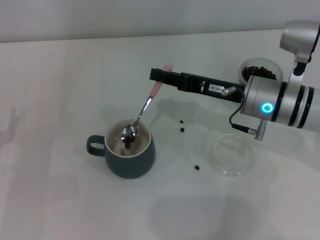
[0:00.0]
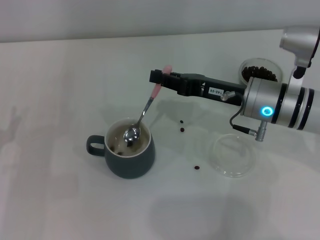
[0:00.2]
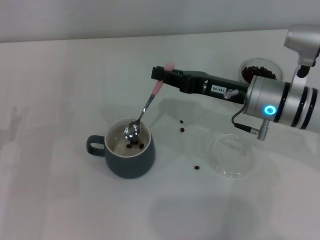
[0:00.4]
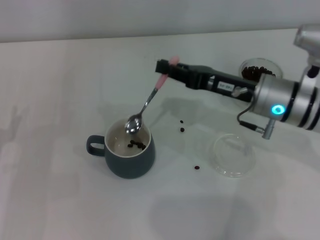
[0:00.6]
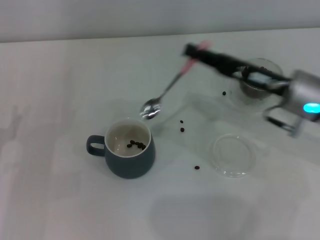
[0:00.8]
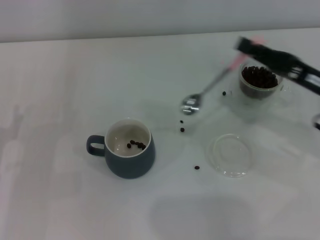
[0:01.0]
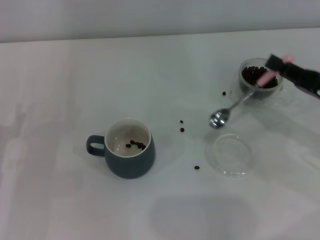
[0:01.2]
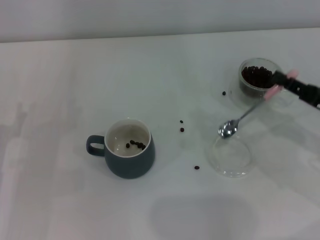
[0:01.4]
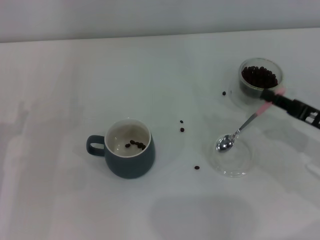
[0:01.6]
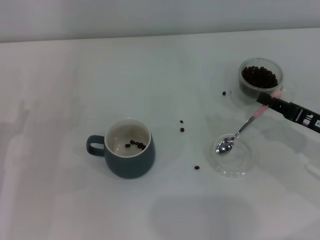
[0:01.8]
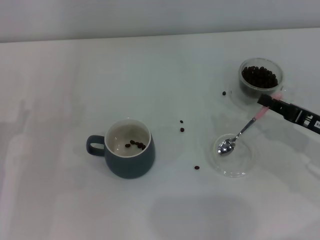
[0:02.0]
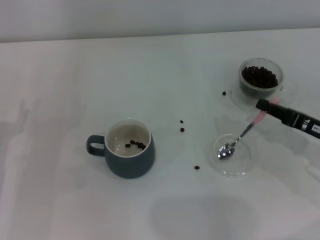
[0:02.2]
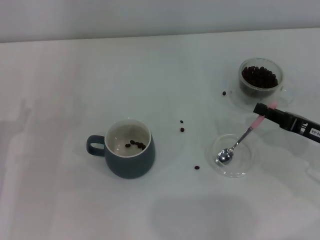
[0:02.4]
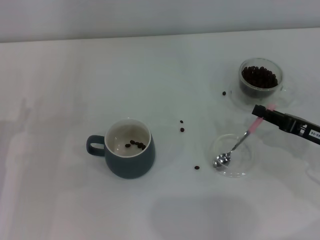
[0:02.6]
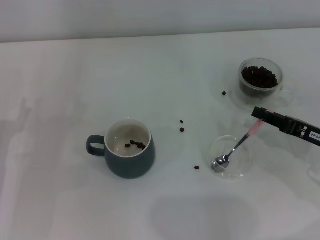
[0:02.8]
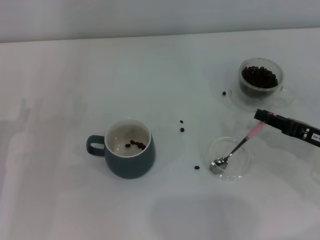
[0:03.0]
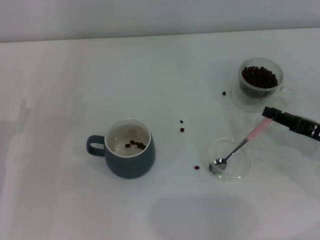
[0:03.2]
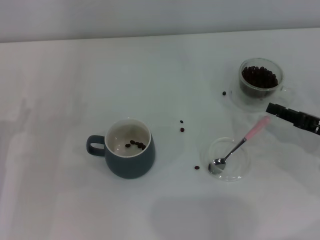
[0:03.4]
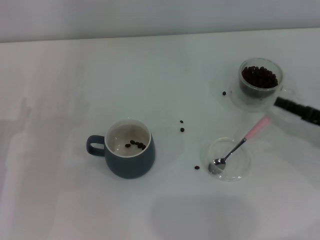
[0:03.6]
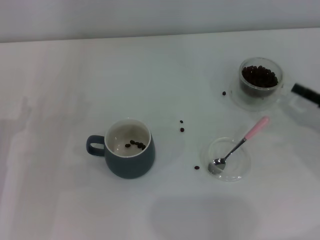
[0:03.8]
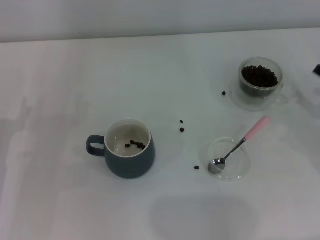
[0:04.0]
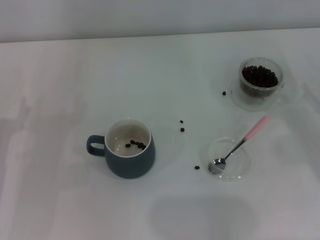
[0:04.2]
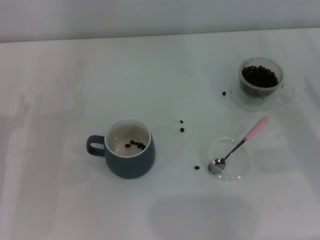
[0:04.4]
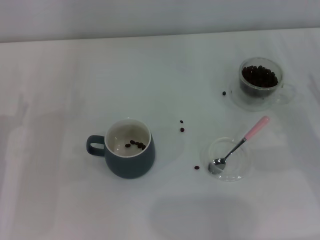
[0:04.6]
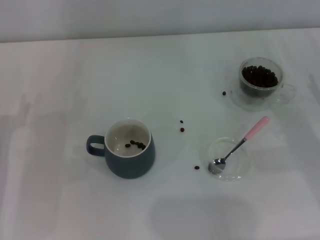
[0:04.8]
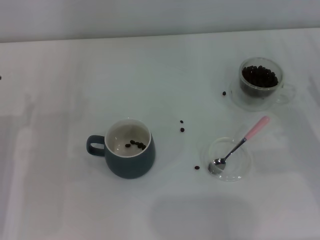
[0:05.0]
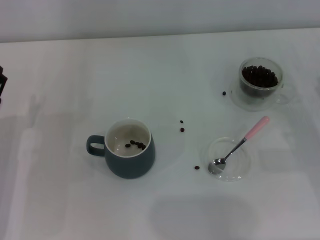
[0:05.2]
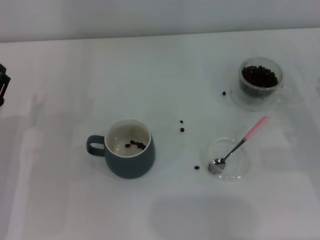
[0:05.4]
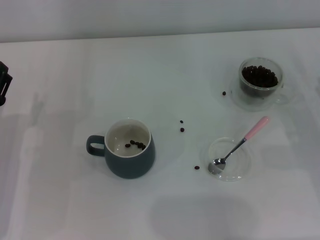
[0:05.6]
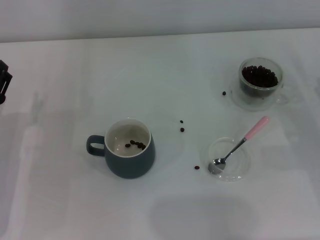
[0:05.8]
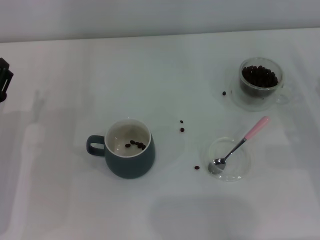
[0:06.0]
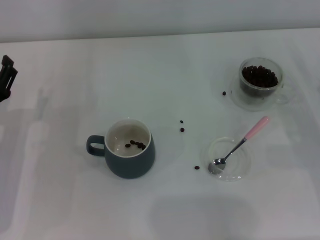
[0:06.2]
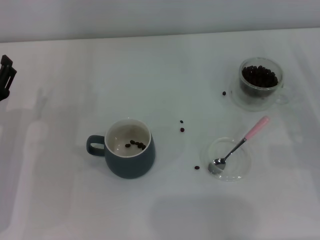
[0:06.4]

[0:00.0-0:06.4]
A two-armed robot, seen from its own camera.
Task of the whole recording: Use a pink spoon to take out the coffee beans from the glass and pour them into the gray cup.
Step, 0.6 to 3.4 s: Place the spoon back in its original place with the right gripper.
0.0 to 1.6 s: The right gripper moves to the right and backward, some 15 cm.
1.6 to 3.2 s: There are only small adjustments of the grippers.
3.2 to 4.8 s: The right gripper opens.

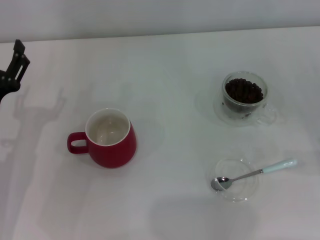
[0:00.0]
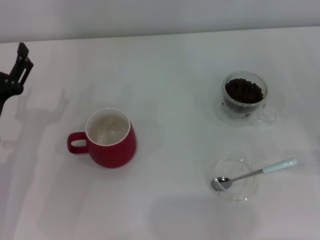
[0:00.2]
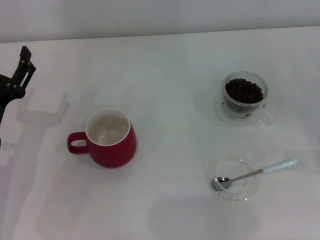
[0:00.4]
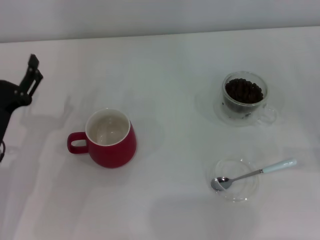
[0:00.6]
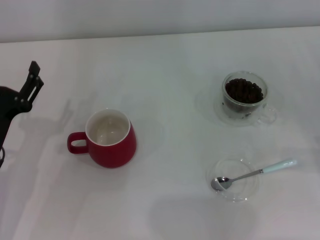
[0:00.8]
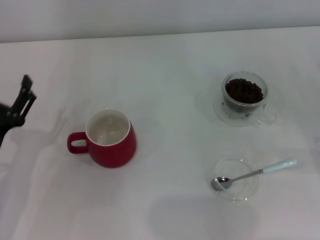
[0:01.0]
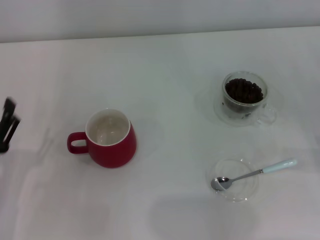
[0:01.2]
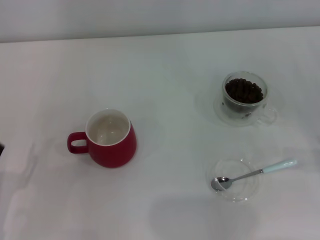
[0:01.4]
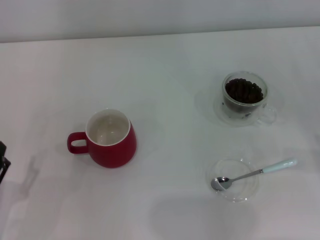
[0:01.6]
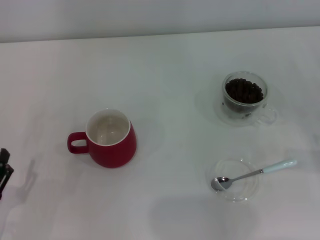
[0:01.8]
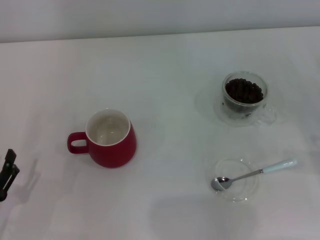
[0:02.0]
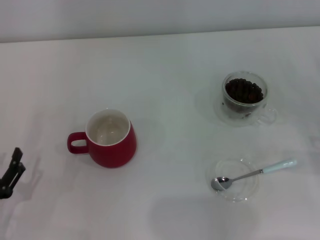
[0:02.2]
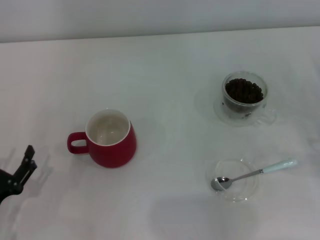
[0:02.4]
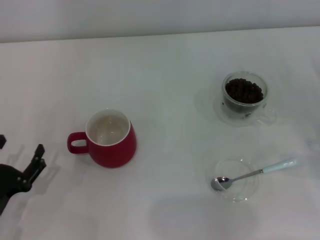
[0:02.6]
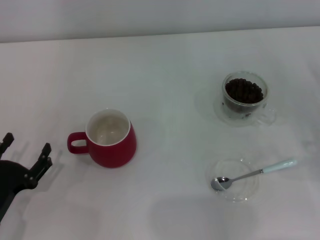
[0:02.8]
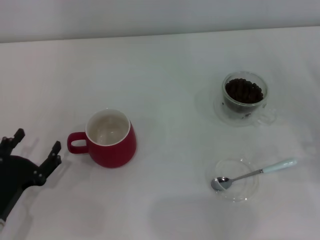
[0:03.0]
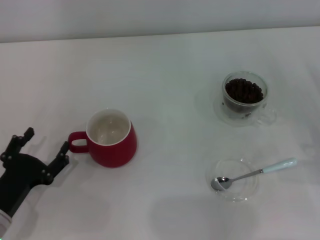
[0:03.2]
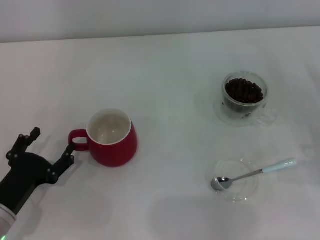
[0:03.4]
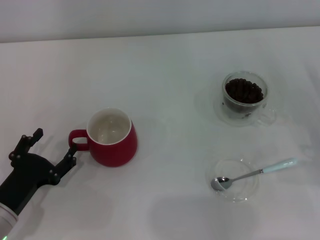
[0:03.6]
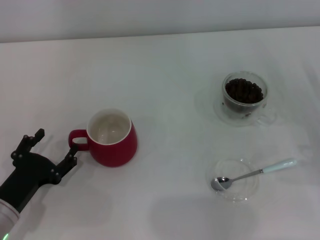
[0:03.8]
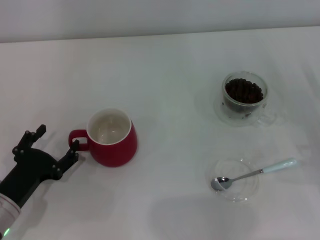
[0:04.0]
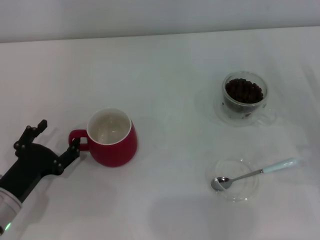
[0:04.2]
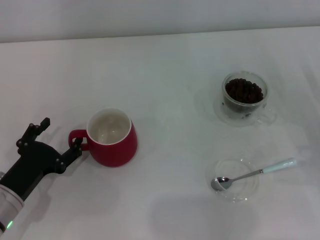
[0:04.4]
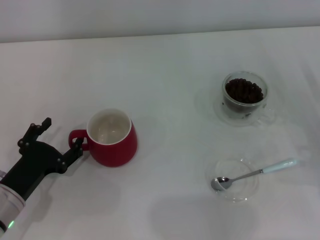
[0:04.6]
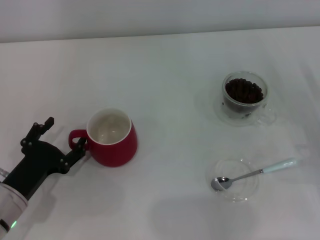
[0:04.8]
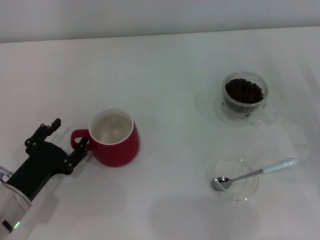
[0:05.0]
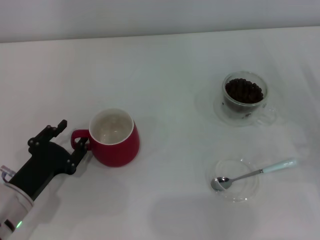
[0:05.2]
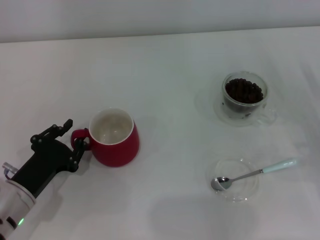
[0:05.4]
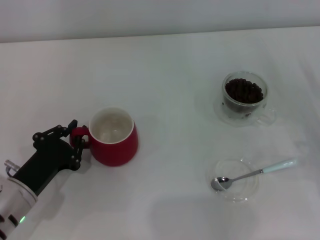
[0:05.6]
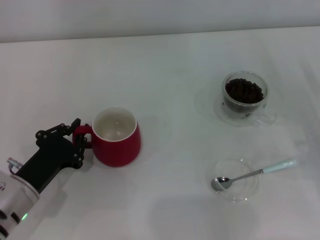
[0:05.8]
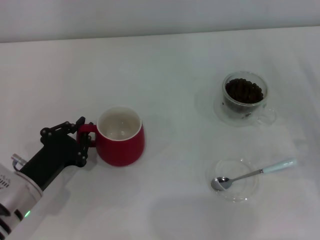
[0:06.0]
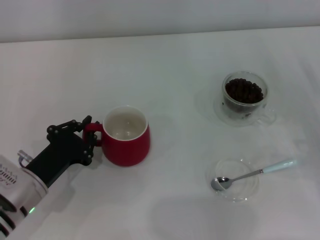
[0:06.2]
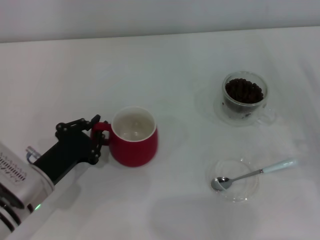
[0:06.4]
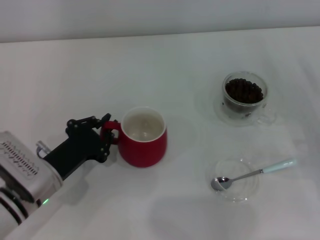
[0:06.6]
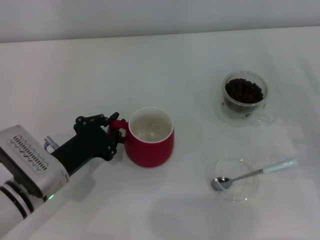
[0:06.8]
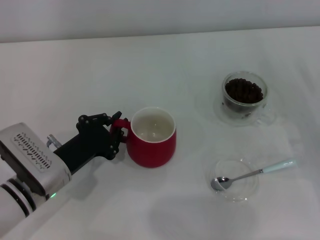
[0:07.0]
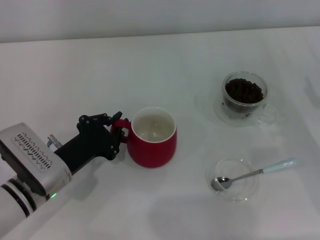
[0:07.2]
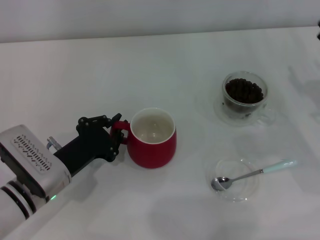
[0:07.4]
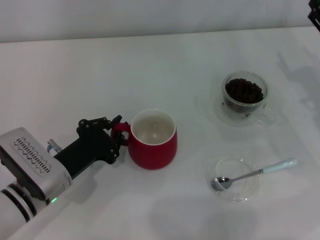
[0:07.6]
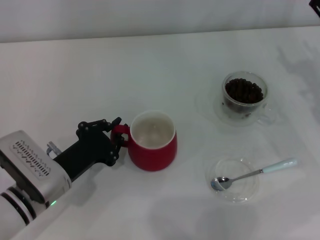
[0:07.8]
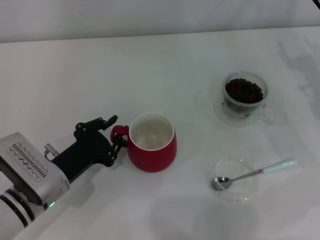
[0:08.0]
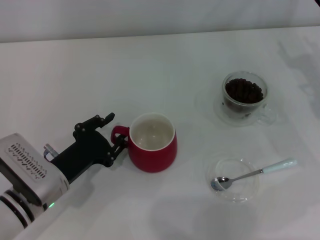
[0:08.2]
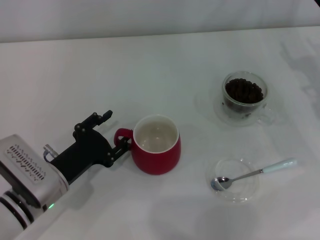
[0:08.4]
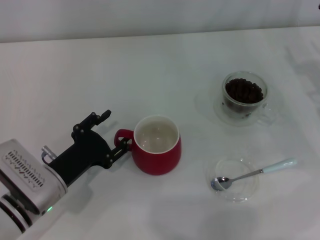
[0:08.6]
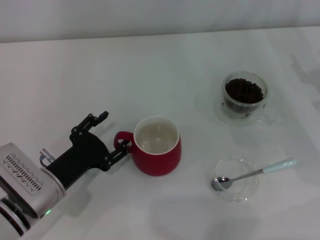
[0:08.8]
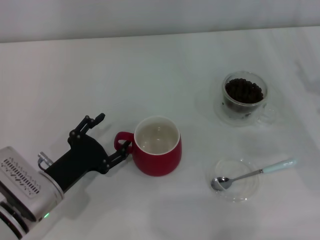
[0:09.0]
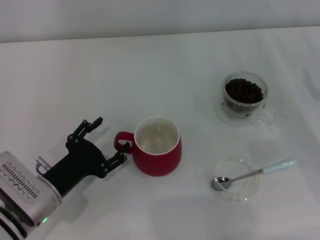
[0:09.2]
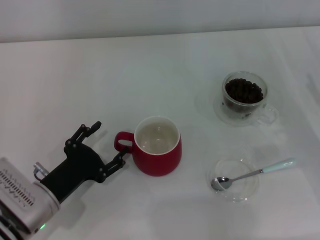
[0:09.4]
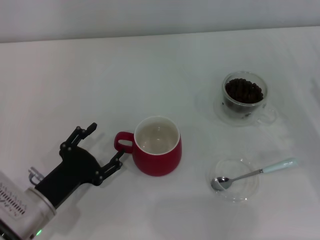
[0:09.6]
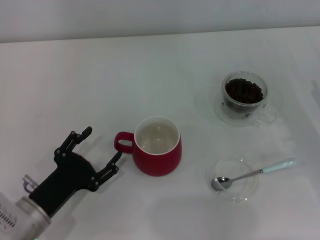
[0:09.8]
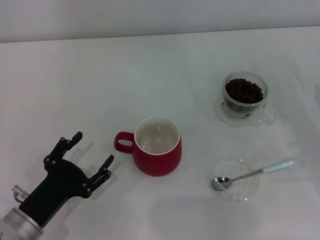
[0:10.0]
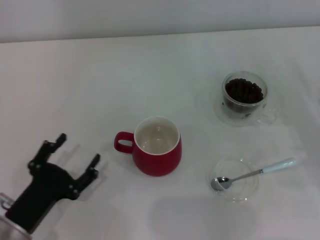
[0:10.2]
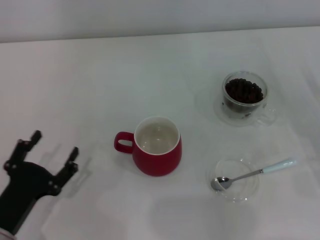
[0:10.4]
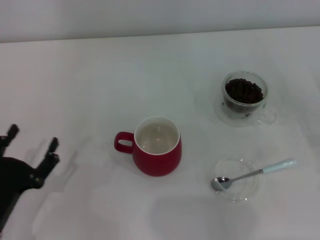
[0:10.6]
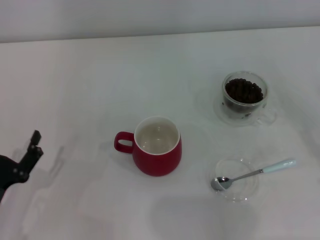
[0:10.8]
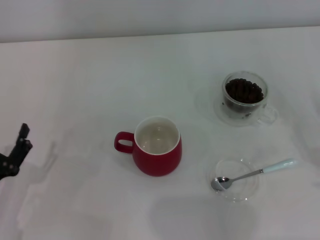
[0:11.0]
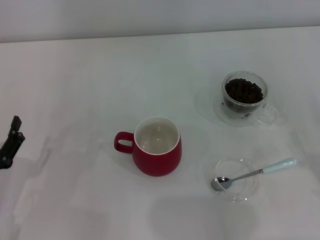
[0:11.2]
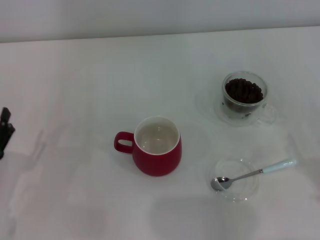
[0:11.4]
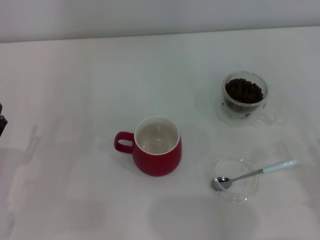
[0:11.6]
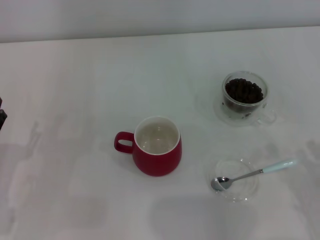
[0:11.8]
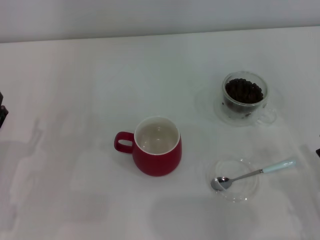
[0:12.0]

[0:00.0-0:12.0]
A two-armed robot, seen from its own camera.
Task of the whole recording: Use a blue spoon to take out the coffee beans from the glass and pour them into the red cup.
Step, 0.0 to 10.2 s: Move the cup to the center of view with the left gripper.
0.0 to 1.6 s: The left gripper goes approximately 15 cm backward.
1.6 to 3.0 s: The left gripper shifts approximately 5 cm forward.
3.0 to 4.4 s: The grippers move only a little.
4.4 to 6.0 s: The left gripper closes up.
6.0 to 7.6 s: The right gripper is displaced forward and upward by some 10 cm.
7.6 to 9.0 s: The left gripper opens up.
9.0 to 10.4 s: The left gripper travels backward by some 5 cm.
10.4 to 12.0 s: The left gripper ends up some 5 cm from where it was.

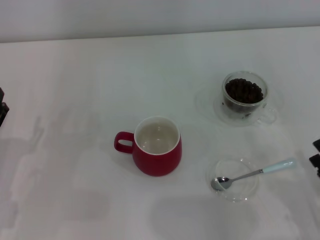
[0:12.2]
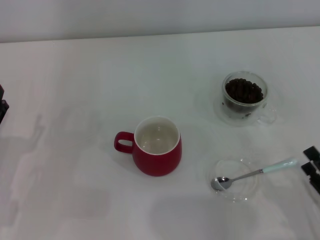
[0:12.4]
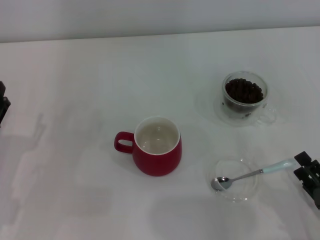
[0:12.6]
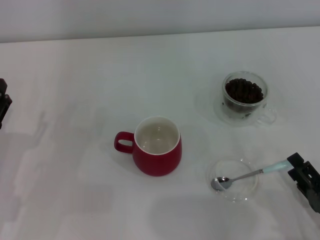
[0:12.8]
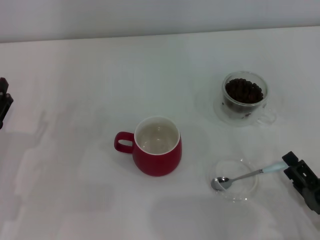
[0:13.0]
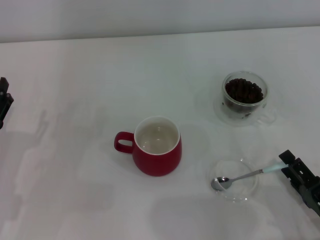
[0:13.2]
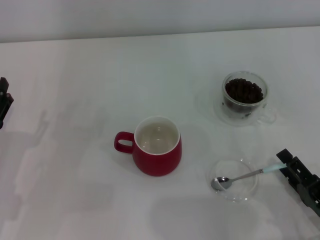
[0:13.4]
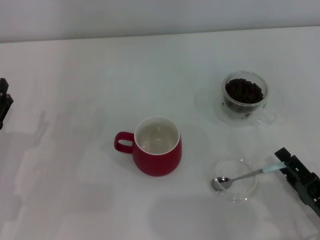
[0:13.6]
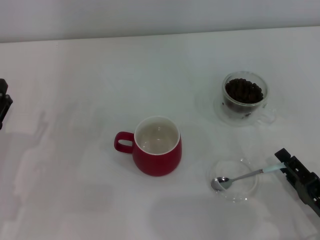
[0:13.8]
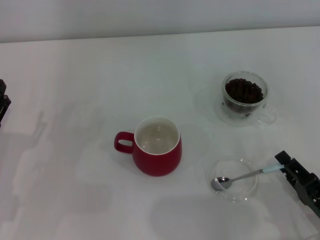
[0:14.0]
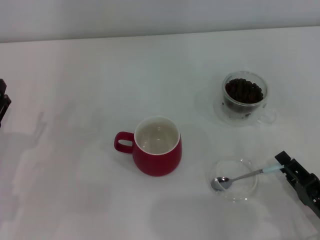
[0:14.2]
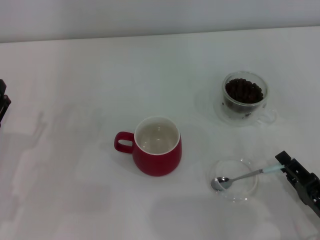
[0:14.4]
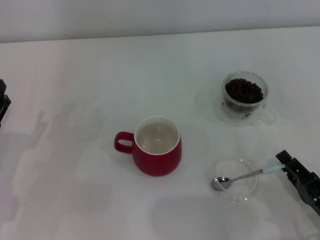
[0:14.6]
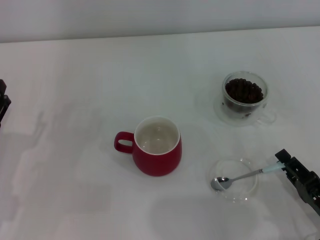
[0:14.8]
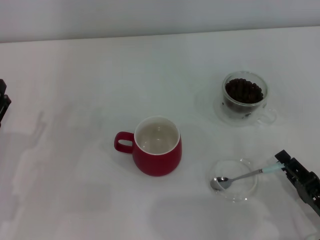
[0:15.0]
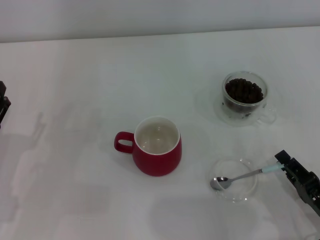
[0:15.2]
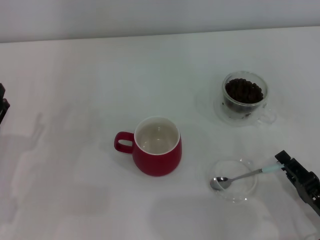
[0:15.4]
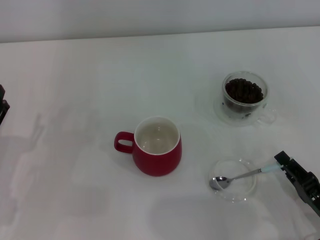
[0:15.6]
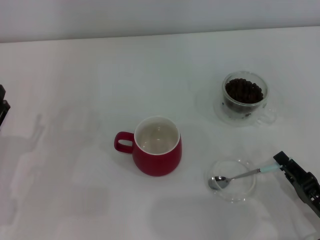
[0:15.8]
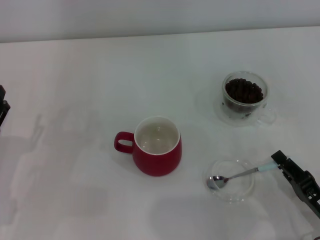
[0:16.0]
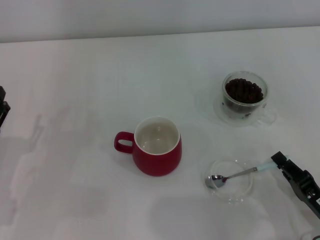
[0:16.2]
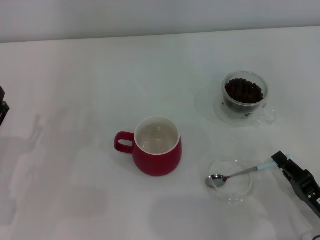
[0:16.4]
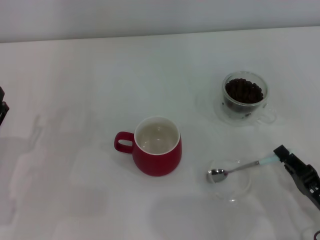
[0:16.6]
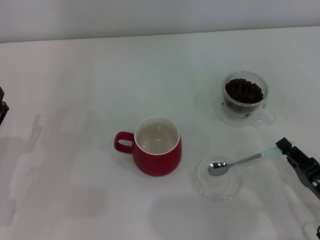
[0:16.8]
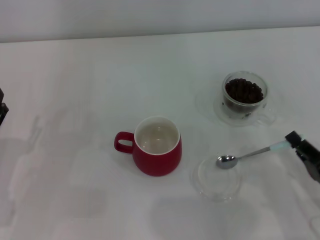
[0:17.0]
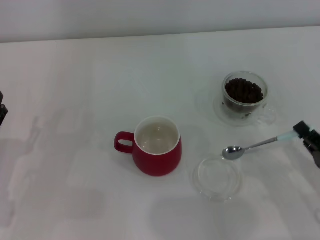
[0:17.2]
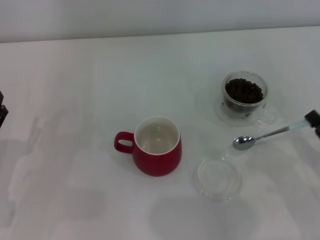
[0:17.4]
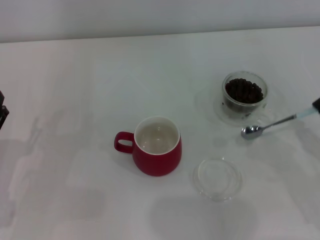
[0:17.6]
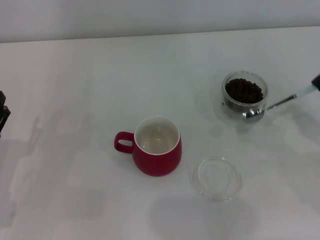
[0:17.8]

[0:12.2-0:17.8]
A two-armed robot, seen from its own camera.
Task of the whole recording: Use a blue spoon to take out the coffee beans from the glass and pour them into the red cup.
Step, 12.2 to 17.0 s: Pick up the spoon with the right gripper.
12.2 to 13.6 s: The grippers move only a little.
15.0 to 16.4 s: Both grippers stay put.
16.4 to 17.8 s: The right gripper travels forward, to the right and upward by some 15 cm.
